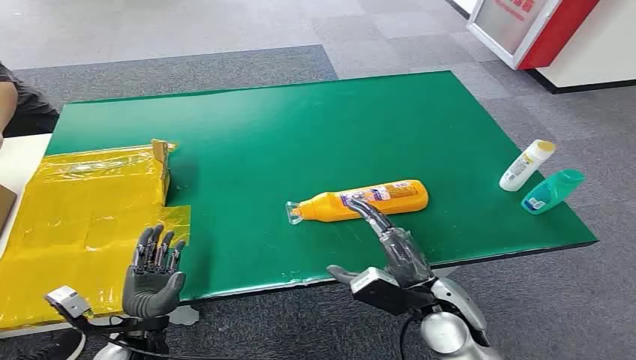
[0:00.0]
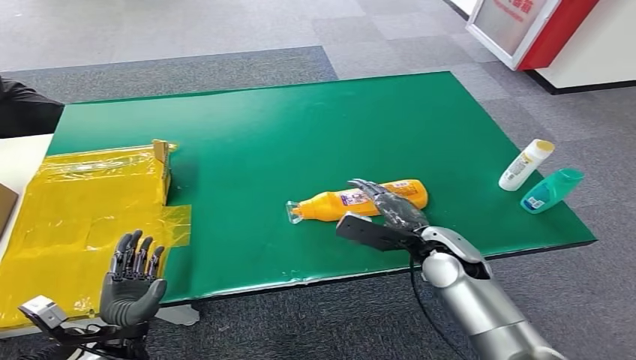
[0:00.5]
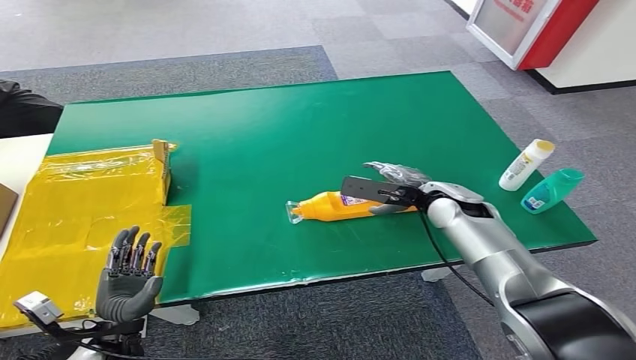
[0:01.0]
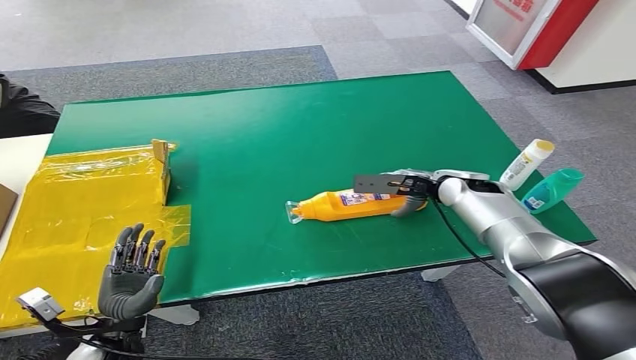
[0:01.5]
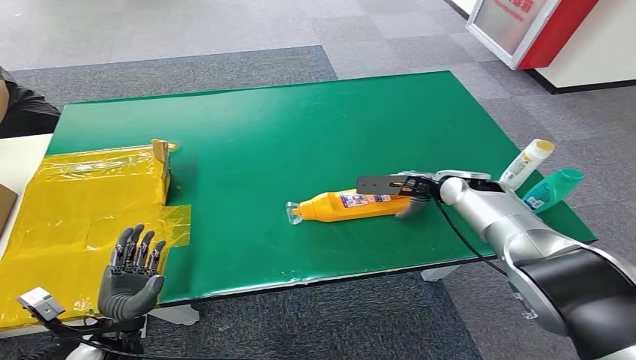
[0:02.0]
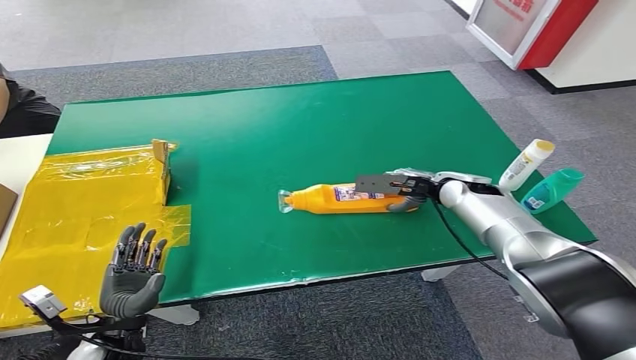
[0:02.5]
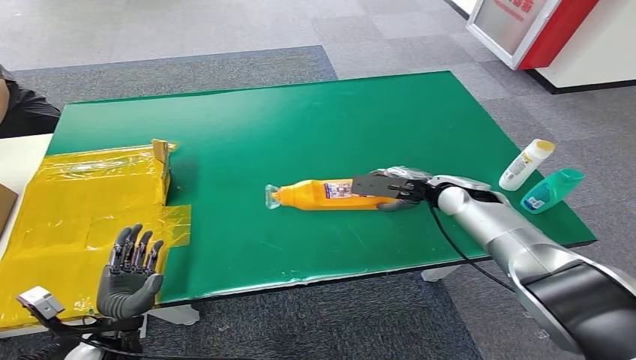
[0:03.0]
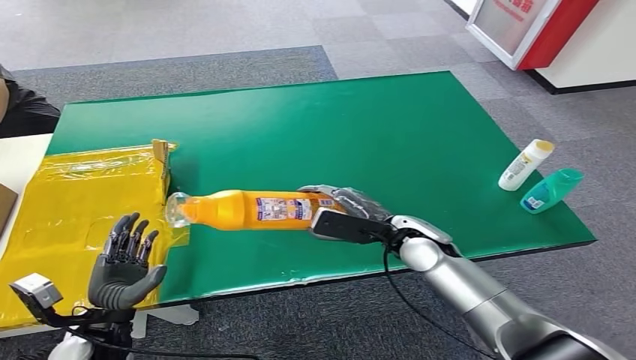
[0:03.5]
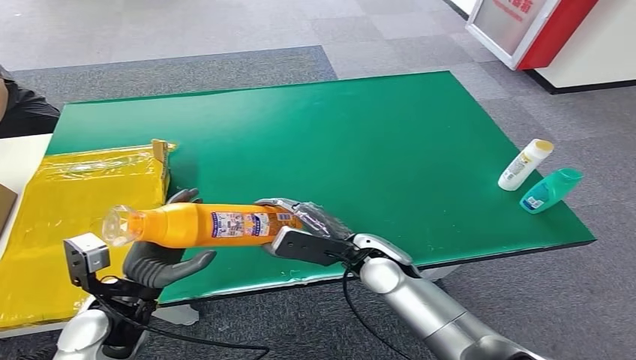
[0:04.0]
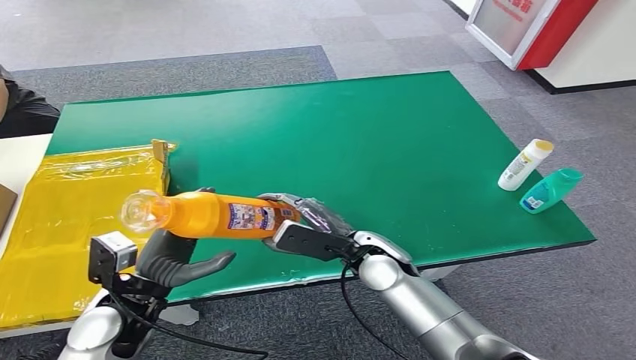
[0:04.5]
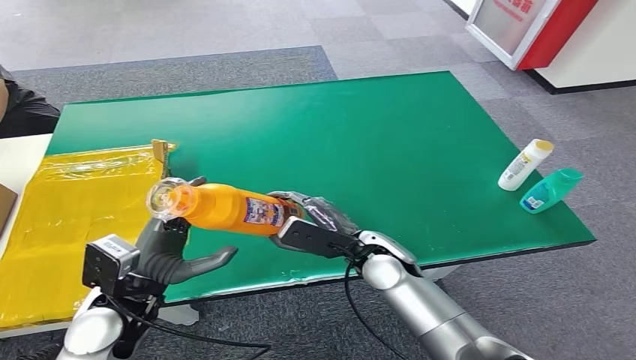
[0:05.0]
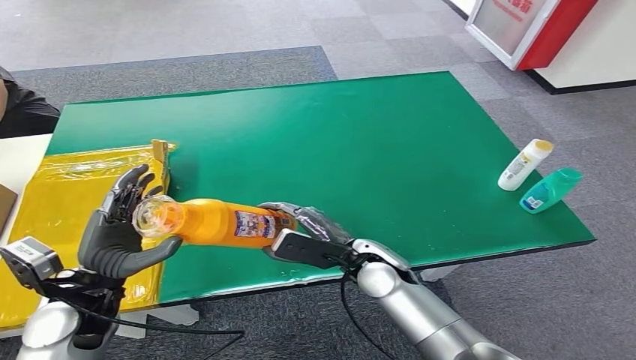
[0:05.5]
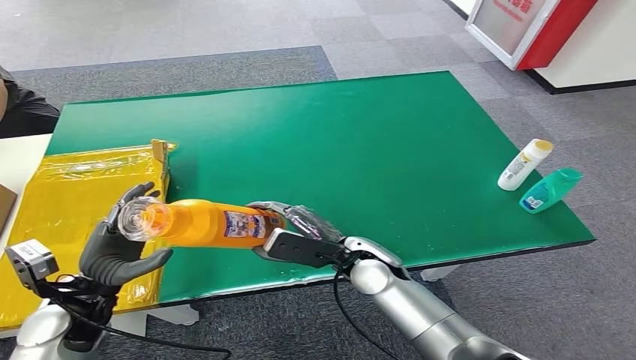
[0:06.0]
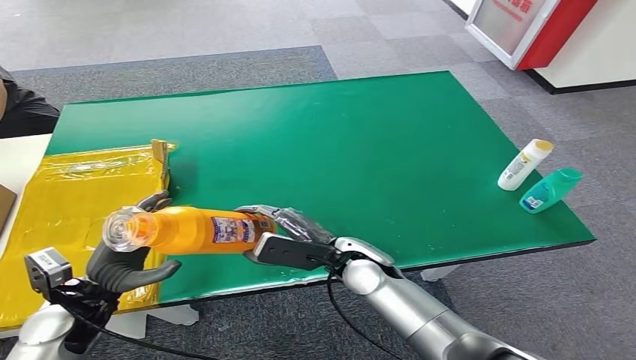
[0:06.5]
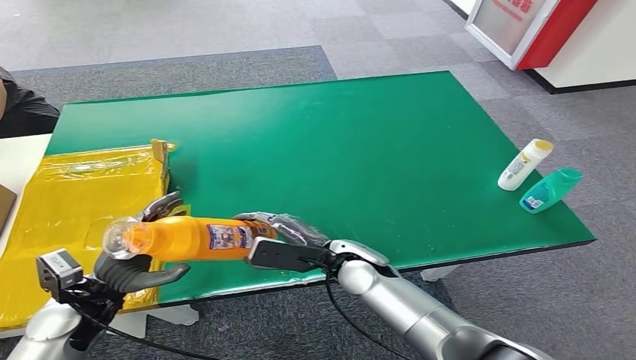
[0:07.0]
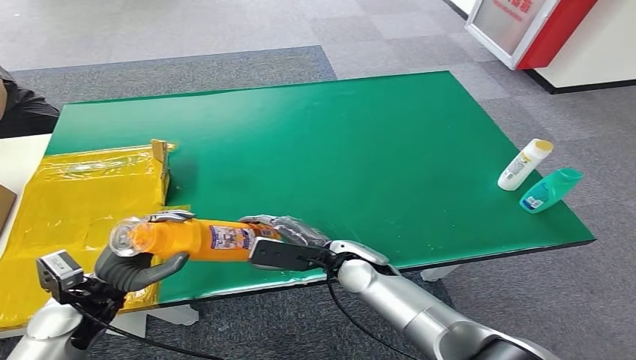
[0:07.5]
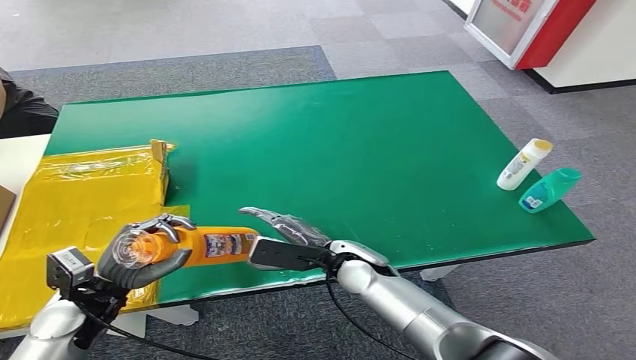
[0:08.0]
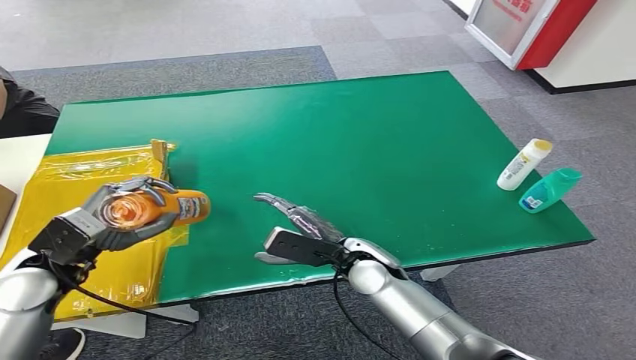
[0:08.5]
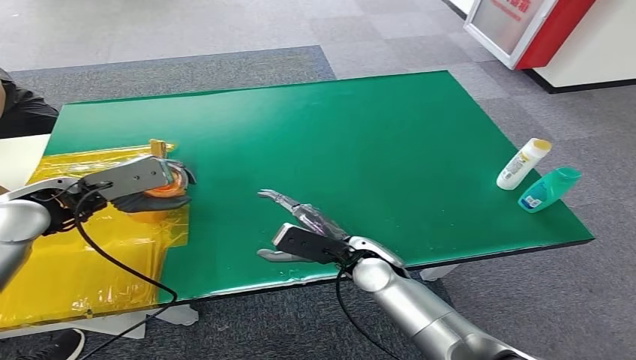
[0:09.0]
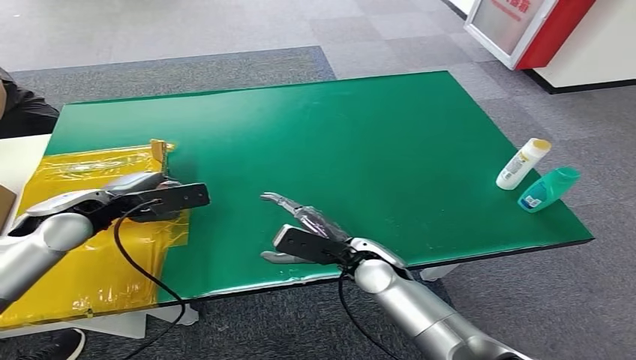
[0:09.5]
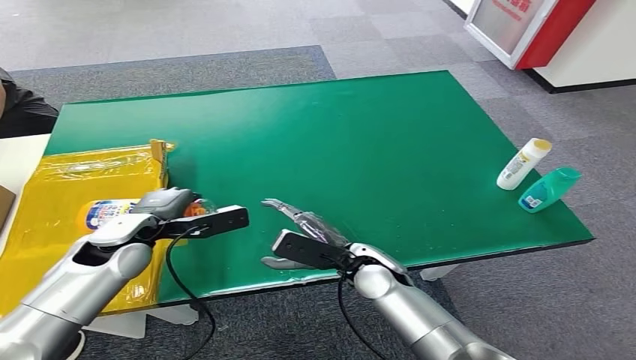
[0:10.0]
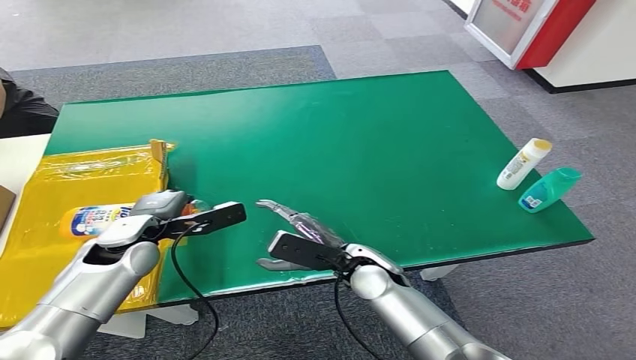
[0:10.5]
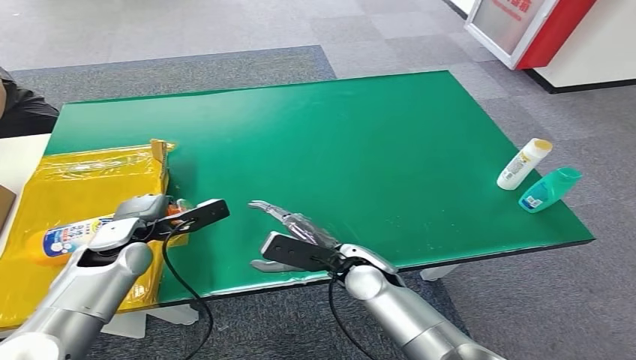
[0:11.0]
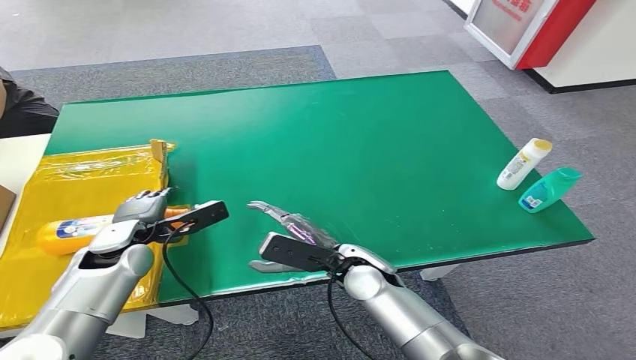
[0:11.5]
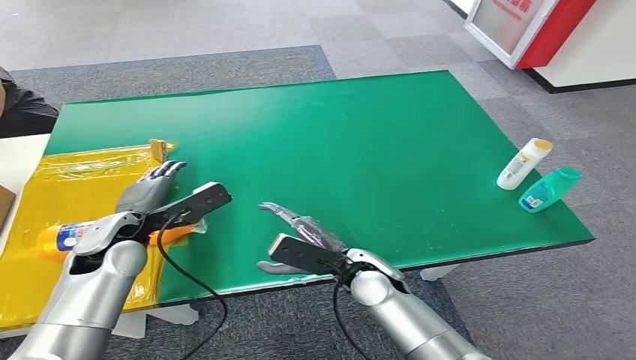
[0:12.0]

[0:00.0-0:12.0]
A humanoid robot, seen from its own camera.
Step, 0:00.0 to 0:03.5: Pick up the bottle from the table.
Step, 0:04.0 to 0:12.0: Turn the bottle to the front side.
0:04.0 to 0:06.0: The left hand shifts approximately 5 cm to the left.
0:06.0 to 0:08.0: The hands move only a little.
0:08.0 to 0:10.0: The left hand heads forward, to the right and upward, covering some 15 cm.

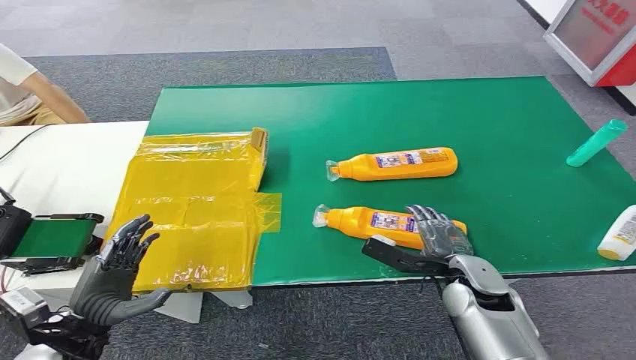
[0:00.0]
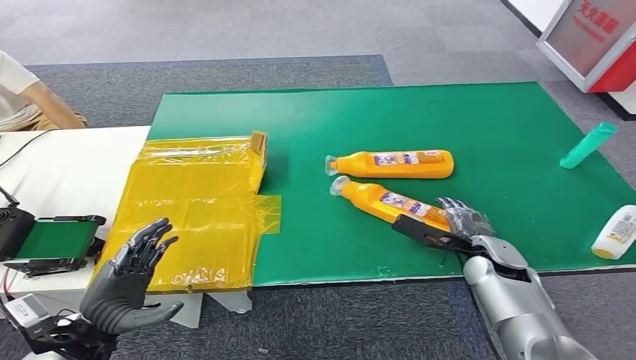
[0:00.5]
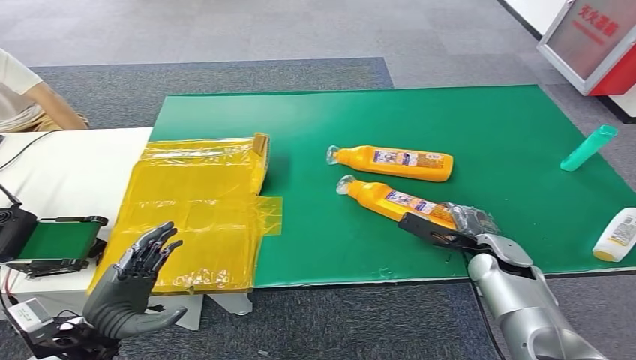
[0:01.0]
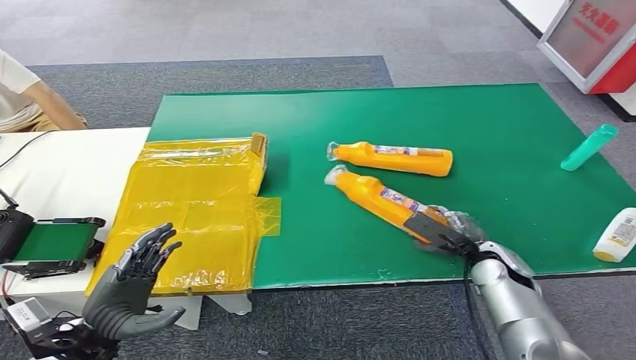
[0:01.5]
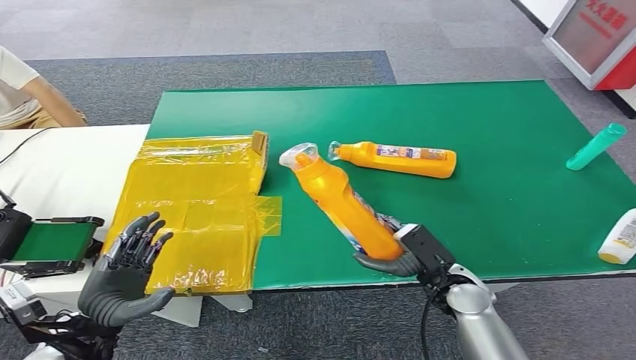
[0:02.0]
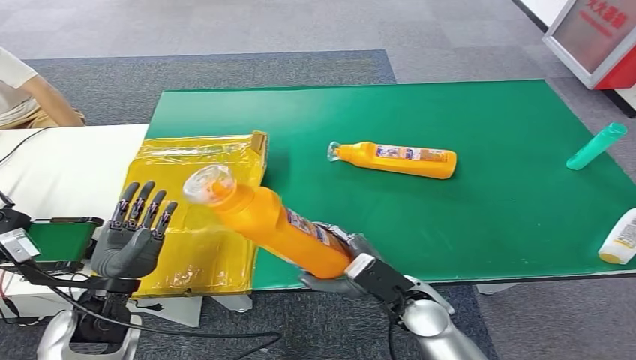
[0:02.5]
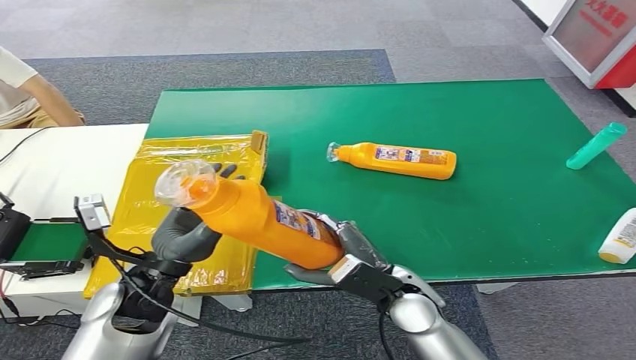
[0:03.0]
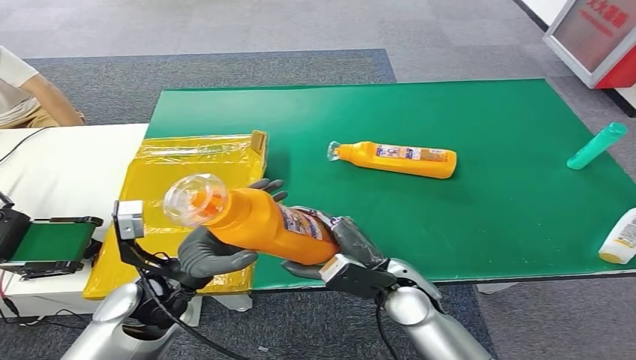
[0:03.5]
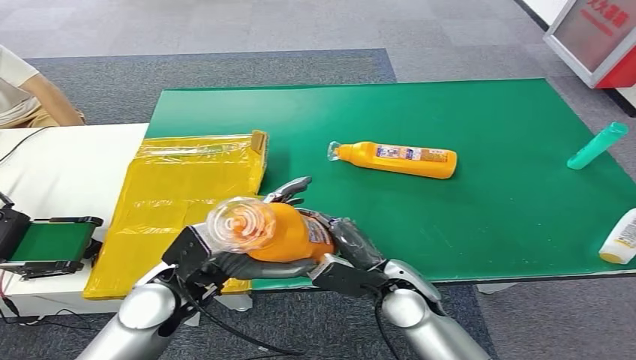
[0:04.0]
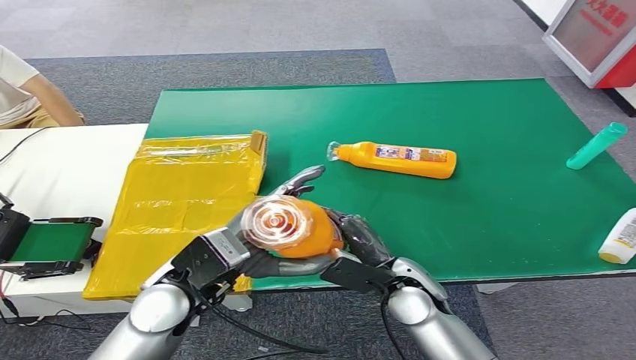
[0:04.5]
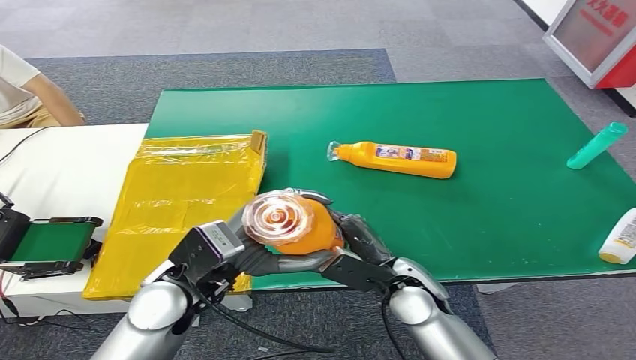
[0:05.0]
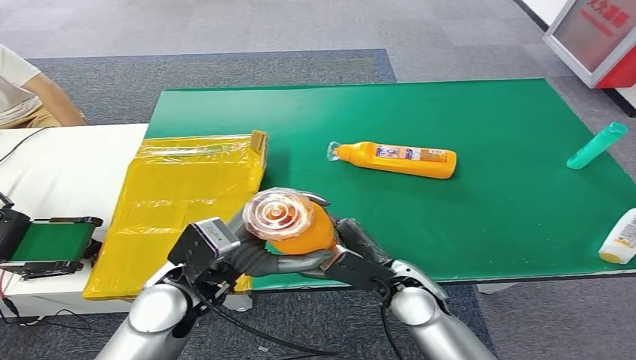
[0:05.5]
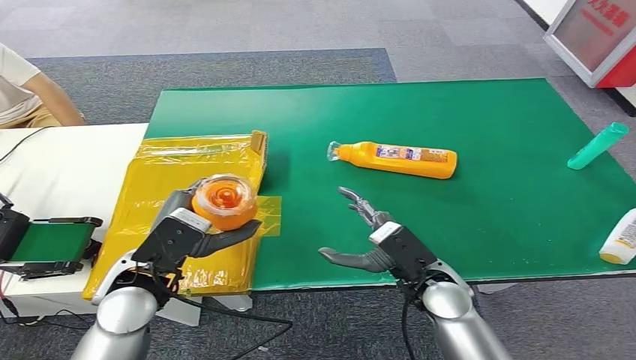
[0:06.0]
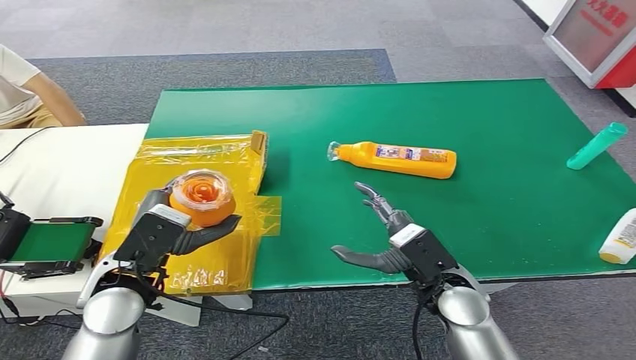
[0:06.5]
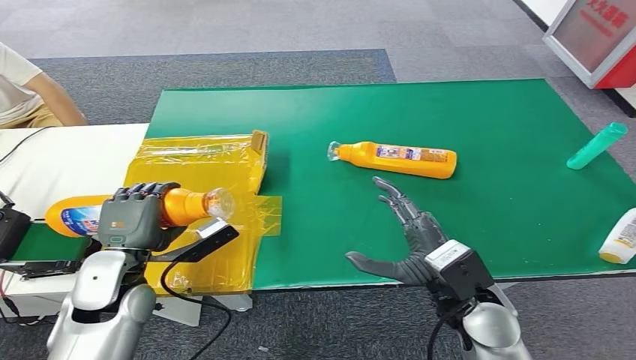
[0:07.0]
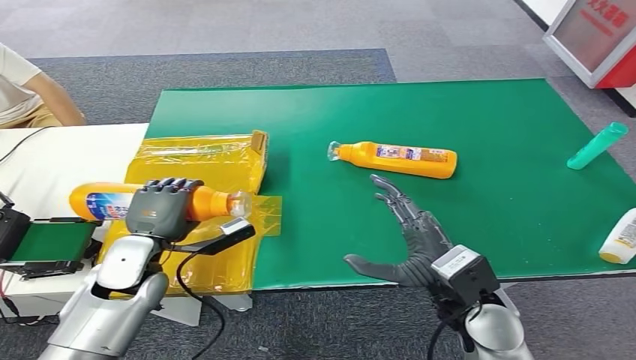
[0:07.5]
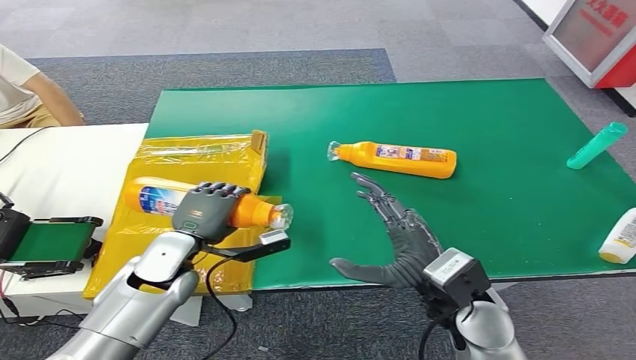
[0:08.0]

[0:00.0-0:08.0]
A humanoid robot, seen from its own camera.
Step, 0:00.0 to 0:02.0: Pick up the bottle from the table.
0:06.0 to 0:08.0: The left hand shifts approximately 10 cm downward and forward. The right hand travels upward by about 5 cm.
